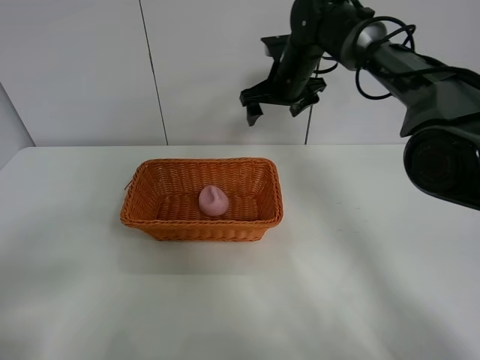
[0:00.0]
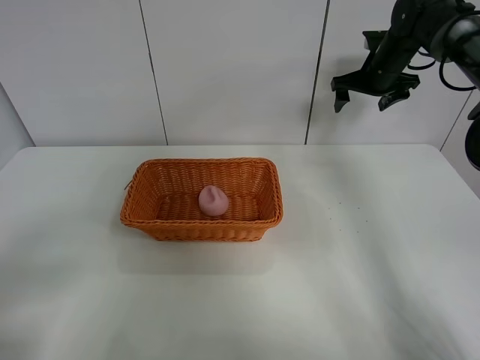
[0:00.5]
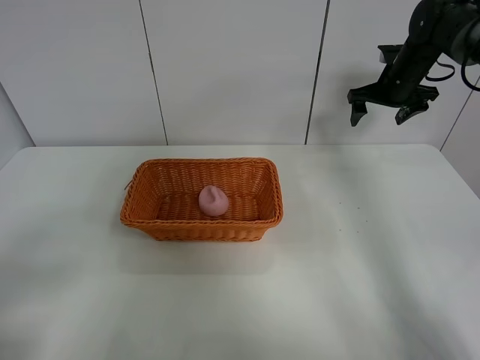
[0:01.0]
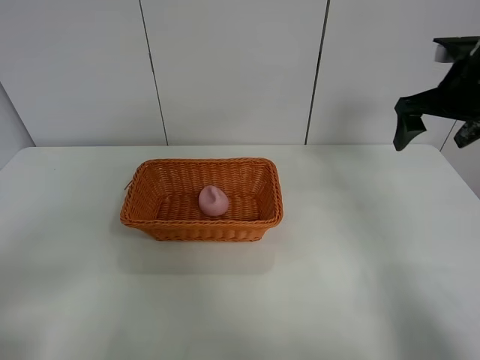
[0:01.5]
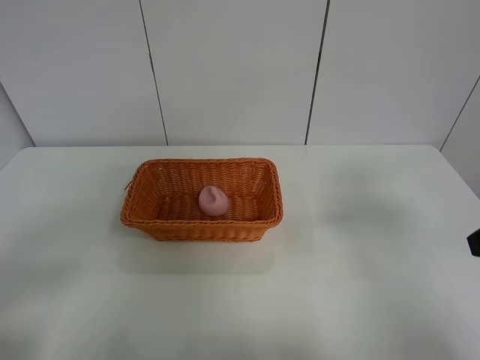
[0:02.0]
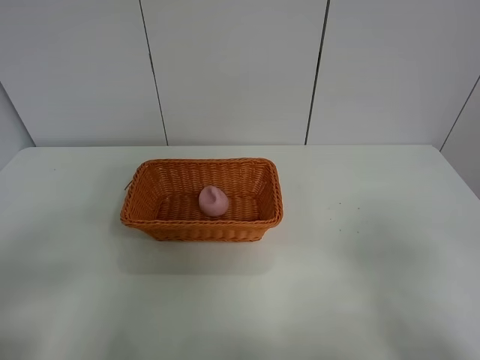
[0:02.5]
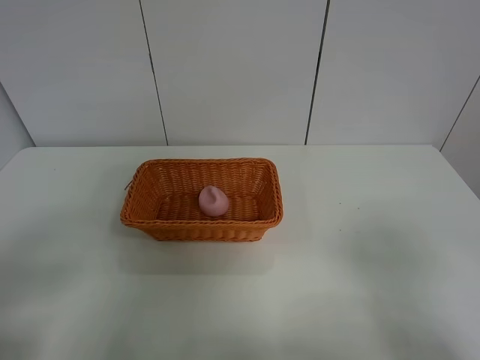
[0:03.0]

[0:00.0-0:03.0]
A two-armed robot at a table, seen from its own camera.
0:00.0 to 0:01.5: The right gripper goes about 25 cm to the right.
0:01.5 to 0:03.0: The right gripper heads backward, covering approximately 35 cm.
